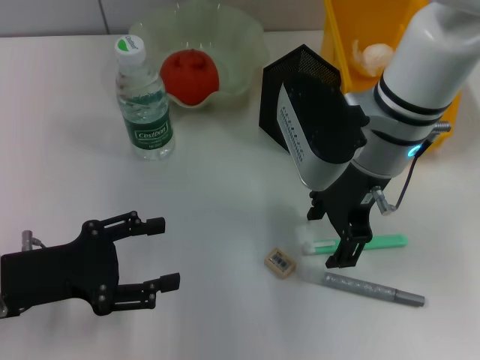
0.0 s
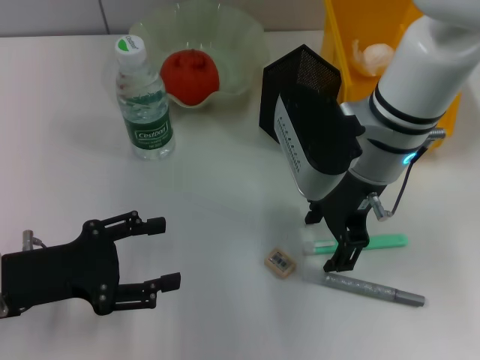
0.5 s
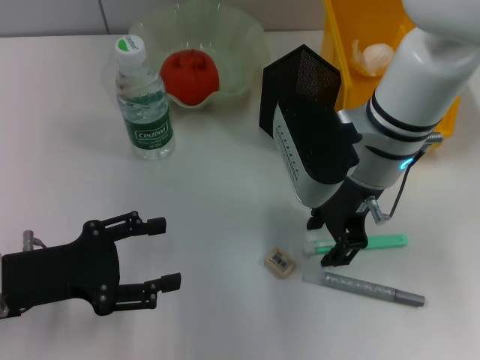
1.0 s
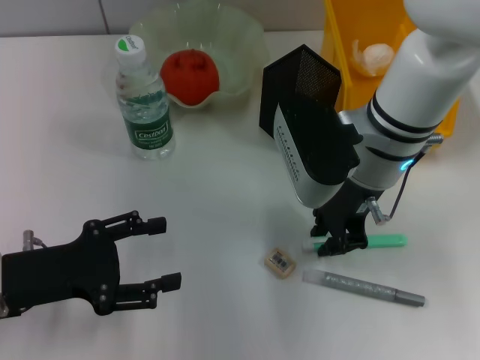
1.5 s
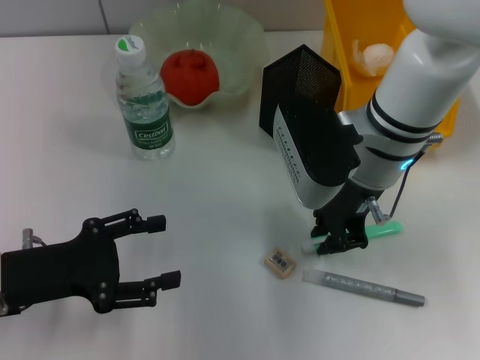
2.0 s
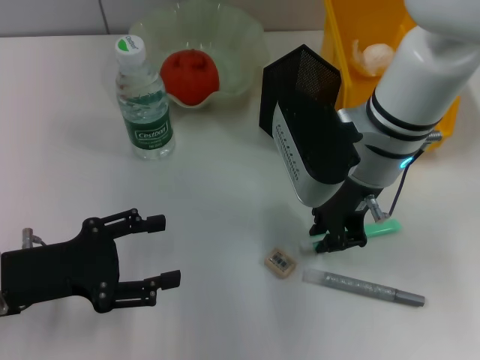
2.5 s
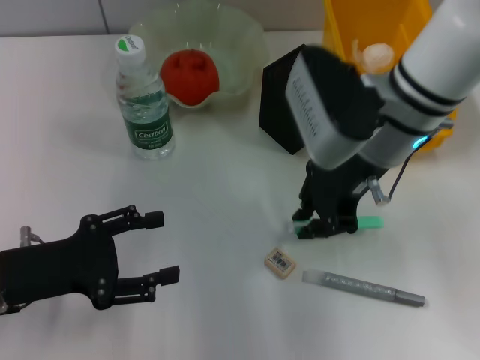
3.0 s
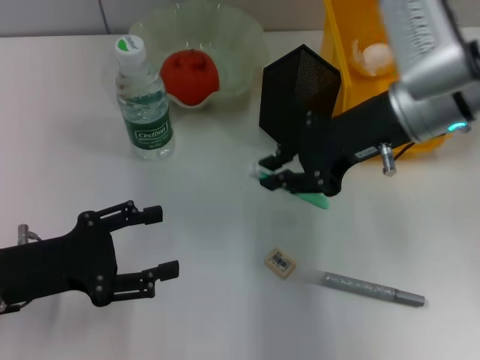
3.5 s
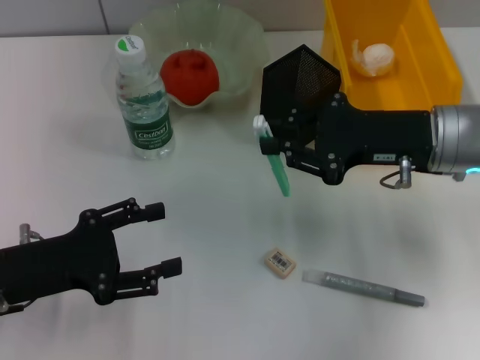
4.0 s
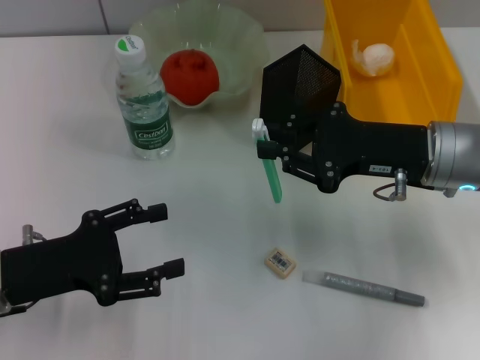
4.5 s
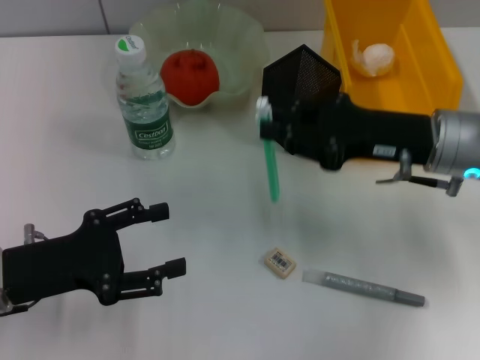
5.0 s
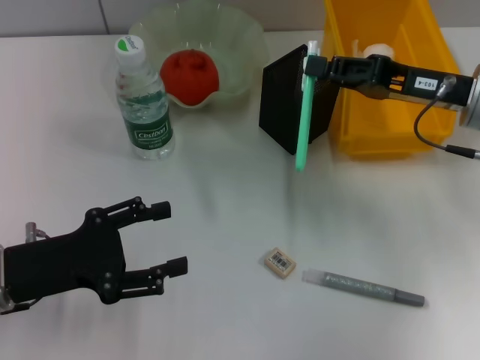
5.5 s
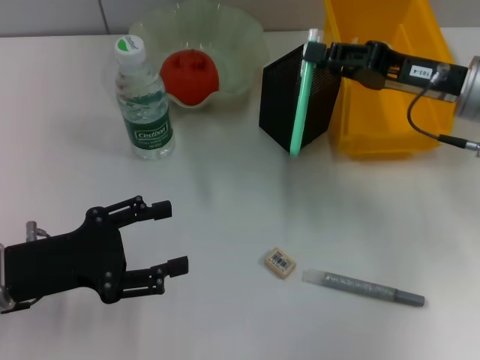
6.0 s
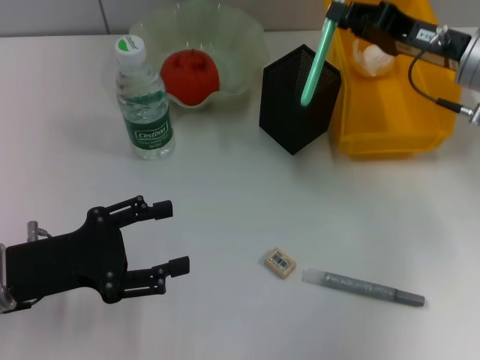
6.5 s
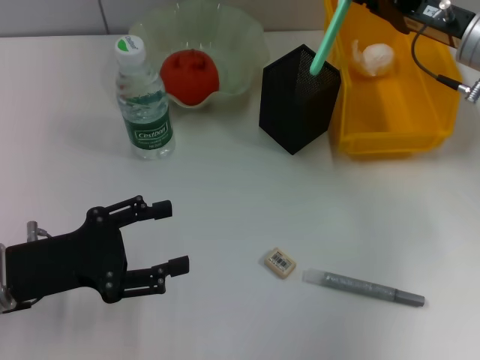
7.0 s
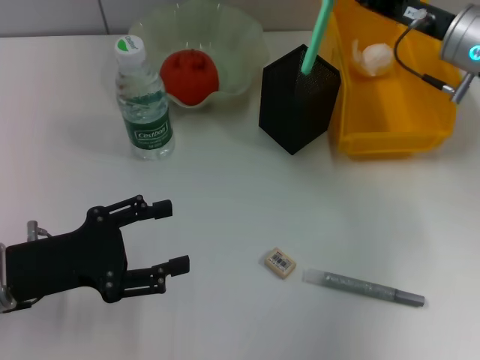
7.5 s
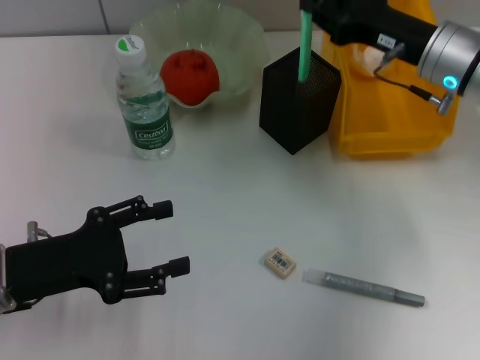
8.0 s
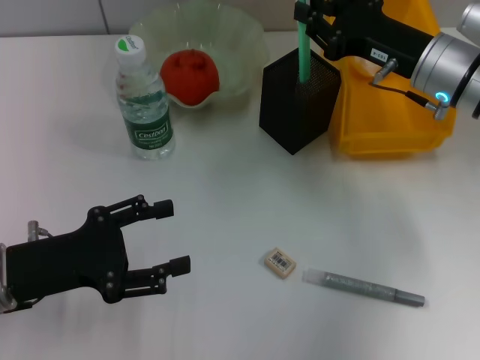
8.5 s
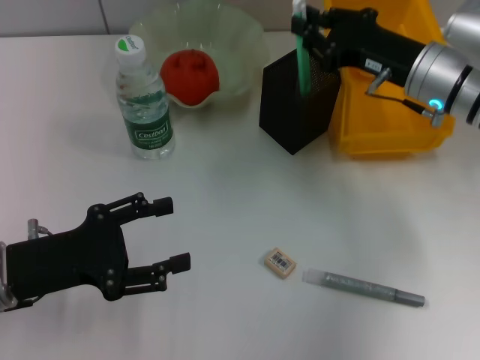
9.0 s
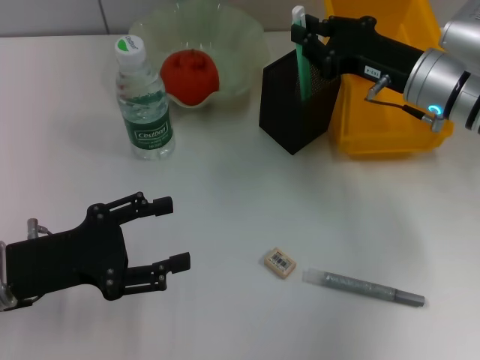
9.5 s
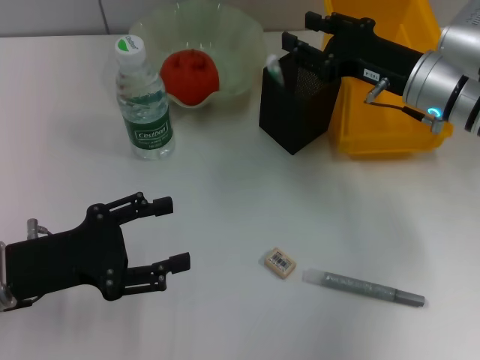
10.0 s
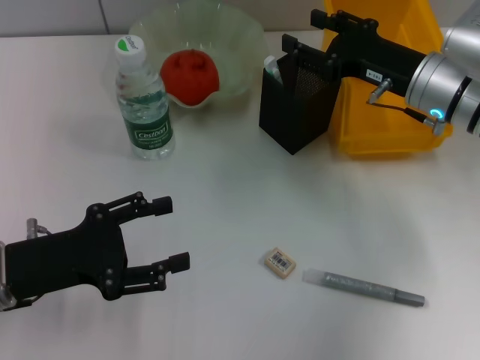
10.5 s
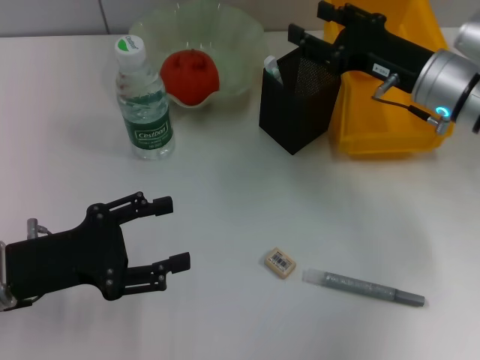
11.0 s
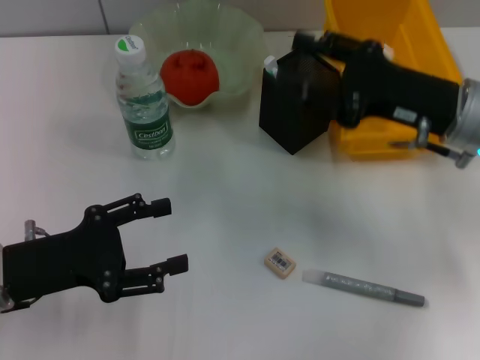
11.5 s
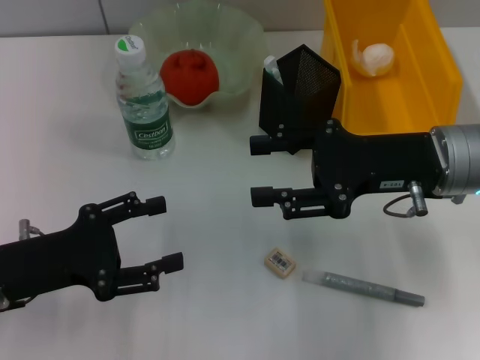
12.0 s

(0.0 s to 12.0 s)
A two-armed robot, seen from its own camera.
Step, 0.0 s - 2.0 s: Grab the blue utility knife with the right hand.
Step, 2.5 s - 10.0 s: Place the blue utility knife into the pen holder with the right hand.
0.0 s - 2.0 s: The right gripper closes its fingers.
2.0 s - 4.0 s: The right gripper shifts approximately 10 cm to the right.
8.0 s - 10.0 s: There are only small adjustments of the grippers.
10.0 s - 12.0 s: The right gripper goes approximately 10 cm backward, and opens.

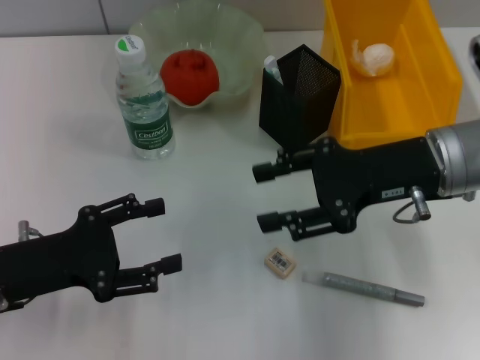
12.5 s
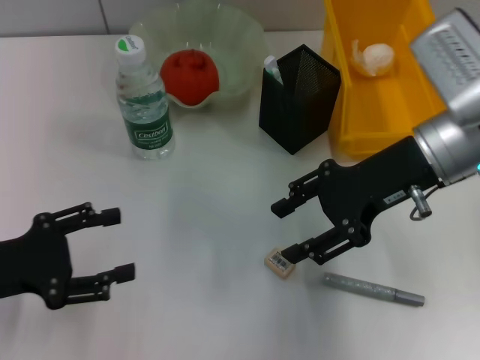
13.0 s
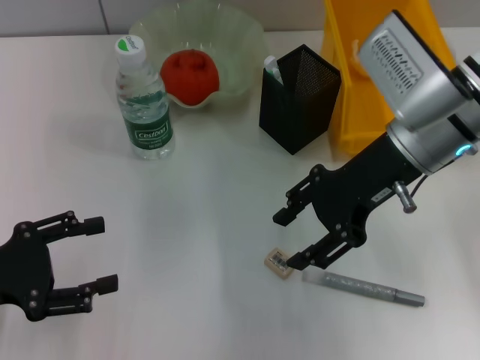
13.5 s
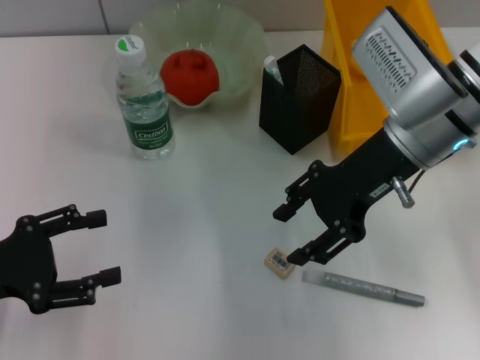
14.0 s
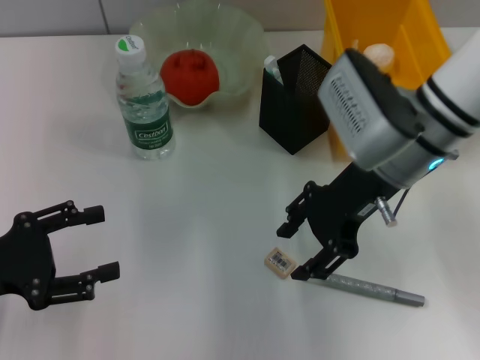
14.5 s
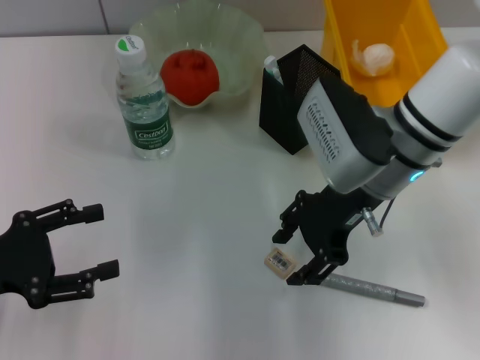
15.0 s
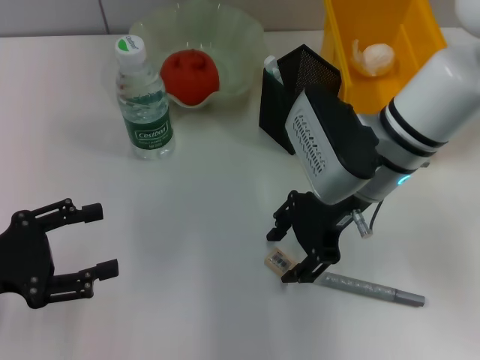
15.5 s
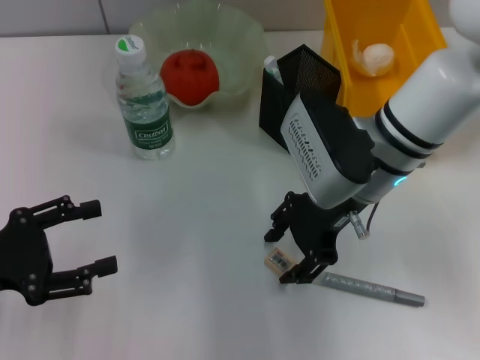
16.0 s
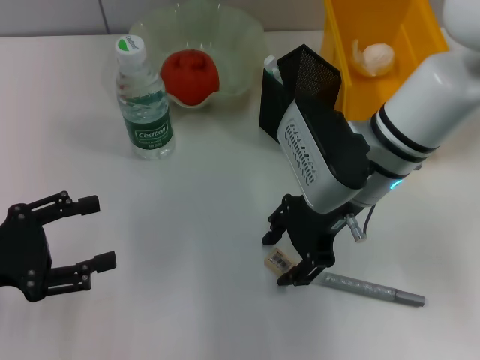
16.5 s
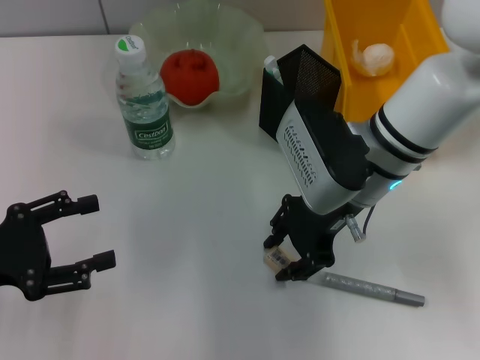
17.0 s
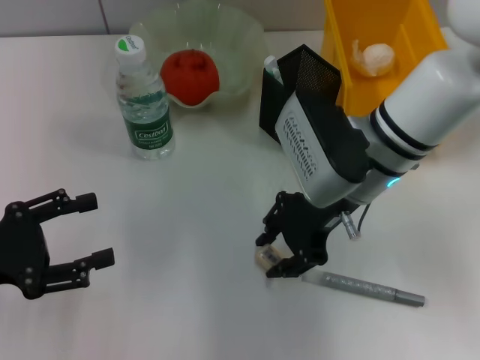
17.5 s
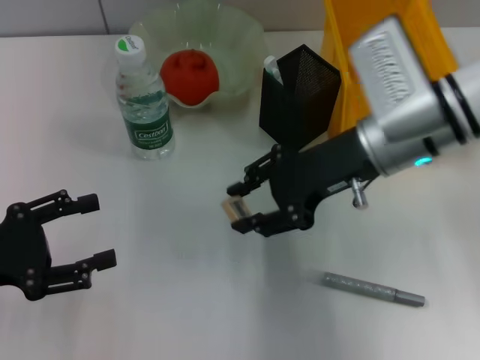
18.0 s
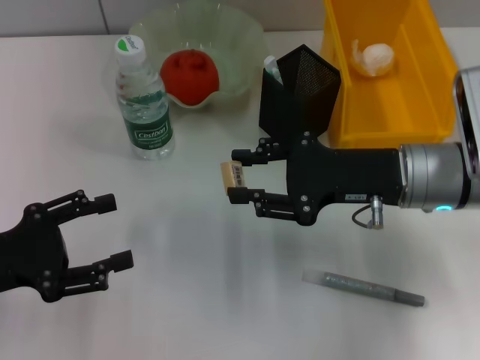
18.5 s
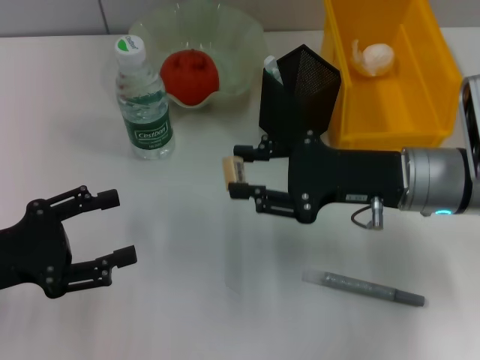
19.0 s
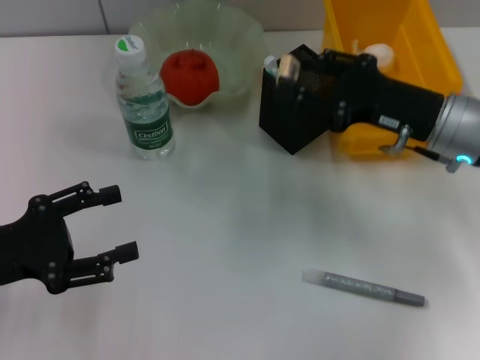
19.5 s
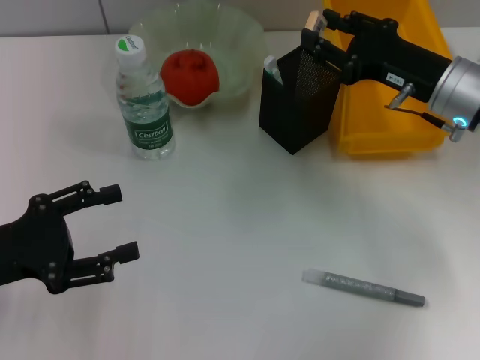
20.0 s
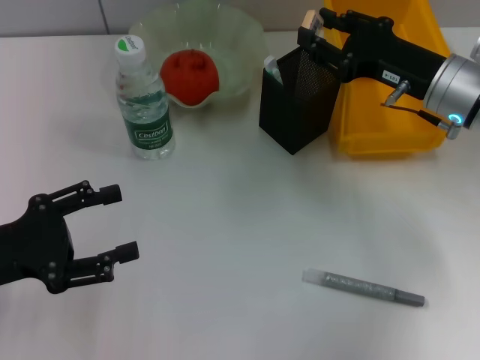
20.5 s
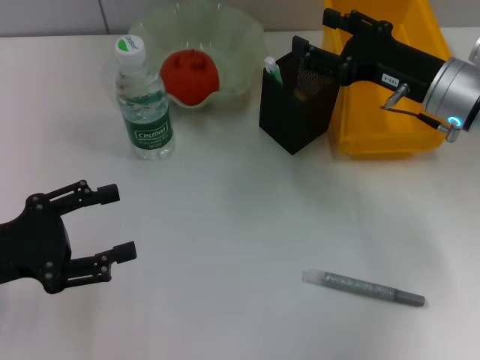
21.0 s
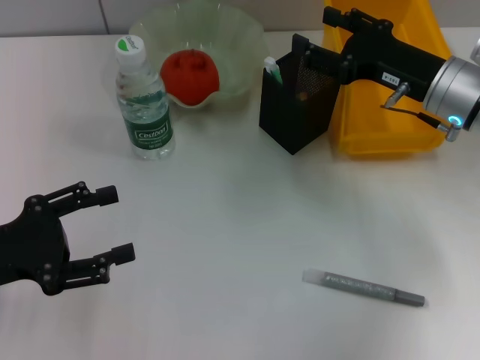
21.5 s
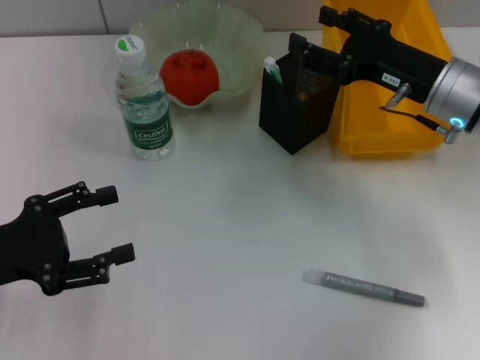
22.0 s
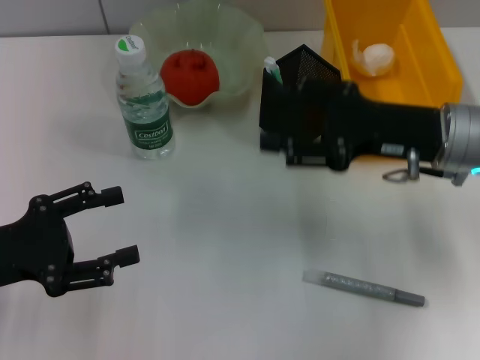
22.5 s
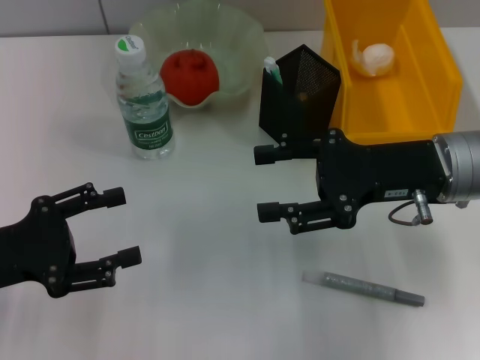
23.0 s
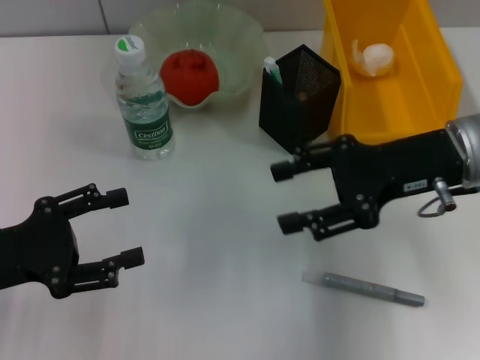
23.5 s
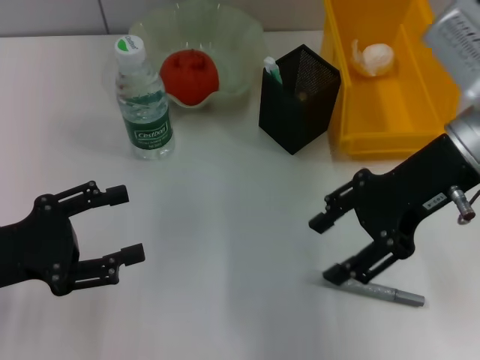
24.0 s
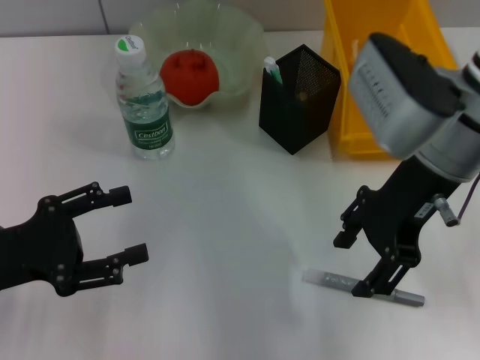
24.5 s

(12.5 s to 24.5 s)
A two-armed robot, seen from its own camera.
Step, 12.5 s - 16.5 s: Grab the eraser with the right hand.
Step, 17.5 s - 21.0 s: Put the eraser into the pen holder with the right hand.
12.5 s - 14.5 s: The two grippers go some 5 cm to the left.
14.5 s - 16.5 s: The grippers move only a little.
16.5 s - 18.5 s: The right gripper heads to the right, covering about 5 cm.
18.5 s - 20.5 s: The right gripper goes about 5 cm forward.
20.5 s - 22.5 s: The right gripper opens up.
22.5 s - 24.5 s: The right gripper is displaced upward and to the left by some 10 cm.

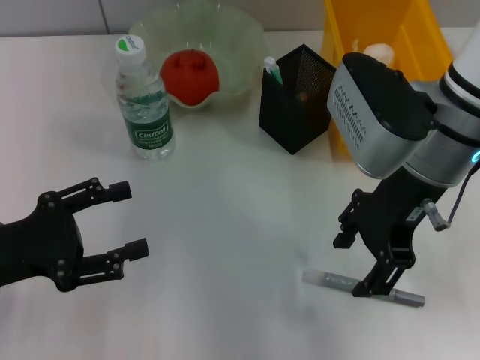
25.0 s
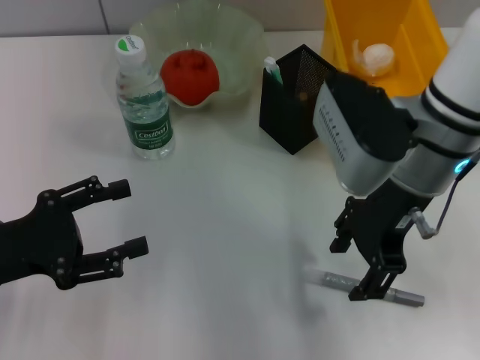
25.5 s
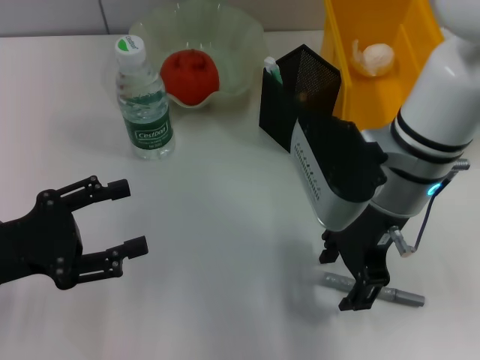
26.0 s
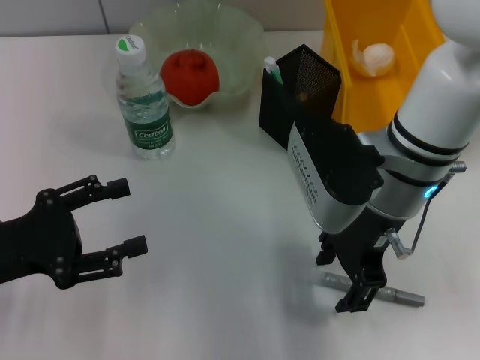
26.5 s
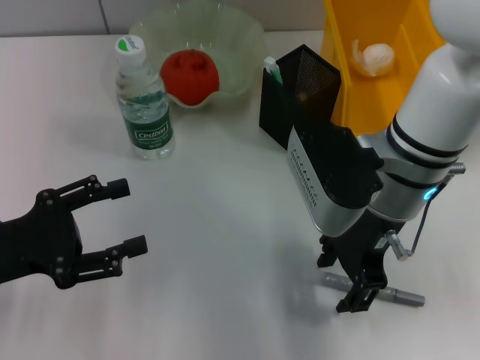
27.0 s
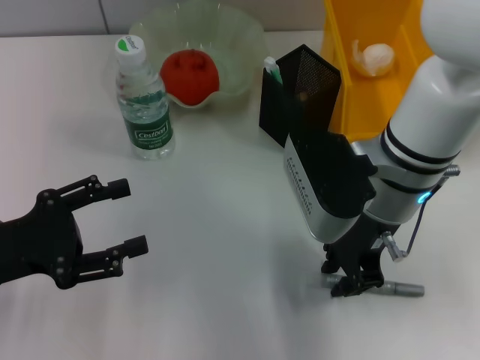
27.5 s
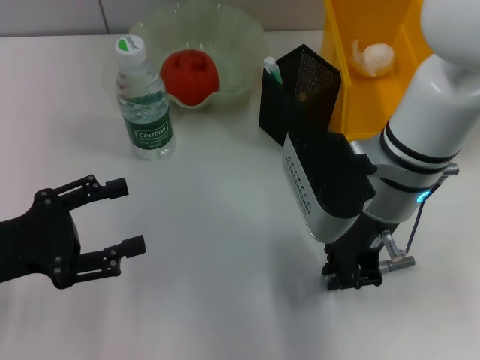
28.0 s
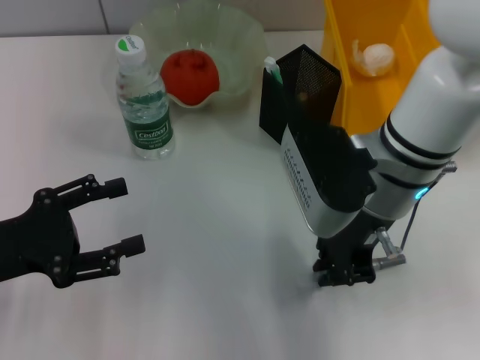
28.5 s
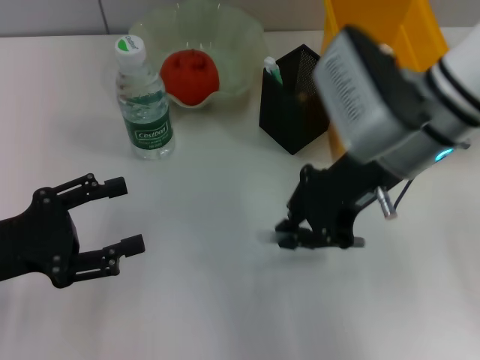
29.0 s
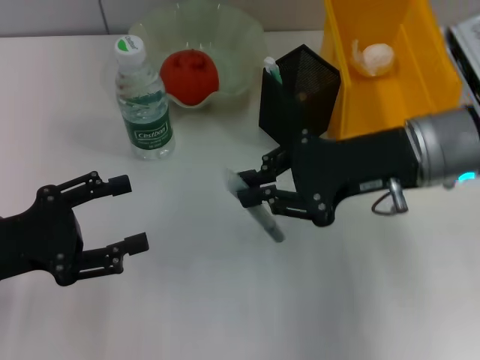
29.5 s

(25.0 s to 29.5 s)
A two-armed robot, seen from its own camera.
Step, 25.0 s - 27.5 s: Grab the gray glue with the right hand.
25.0 s - 27.0 s: The right gripper ends up roughly 5 cm from where it was.
27.0 s - 29.5 s: The right gripper shifts some 5 cm to the right, and closes.
